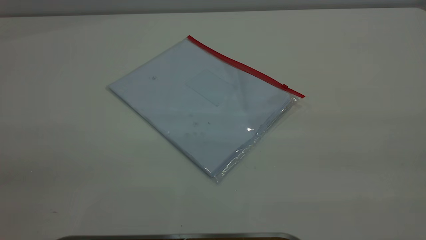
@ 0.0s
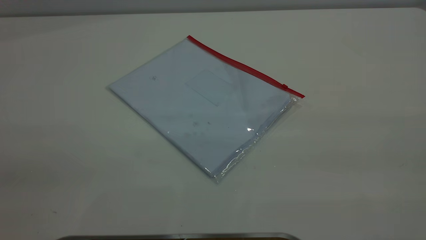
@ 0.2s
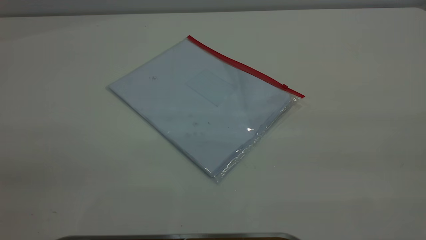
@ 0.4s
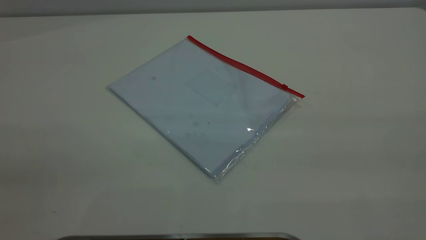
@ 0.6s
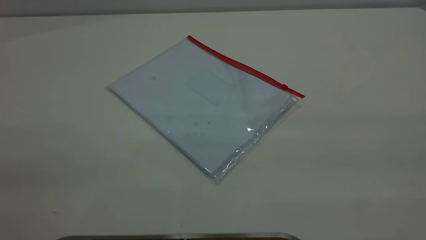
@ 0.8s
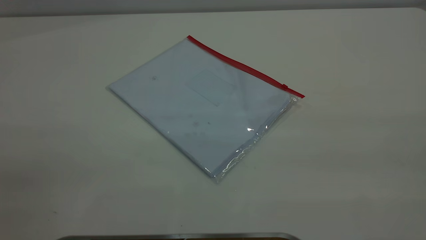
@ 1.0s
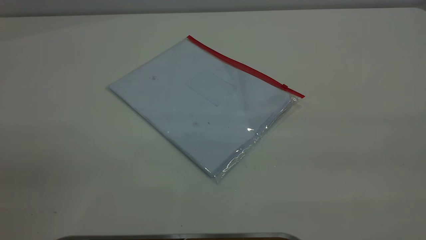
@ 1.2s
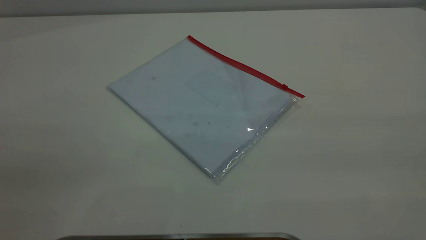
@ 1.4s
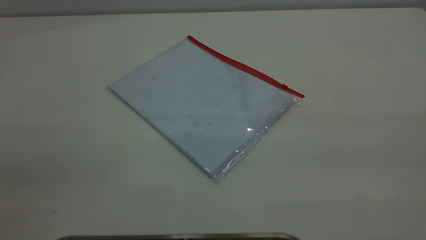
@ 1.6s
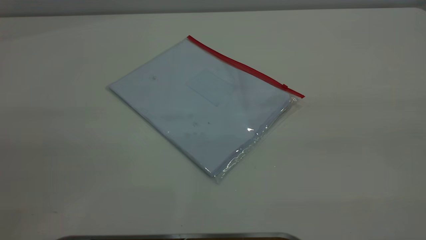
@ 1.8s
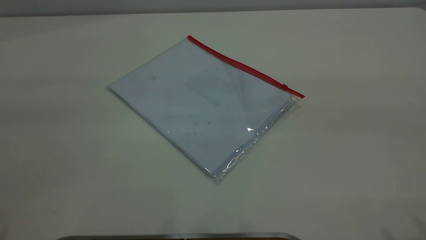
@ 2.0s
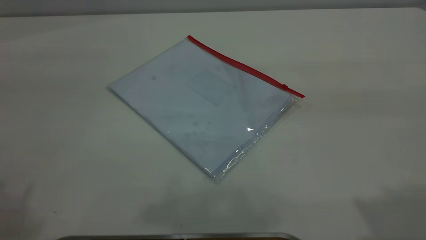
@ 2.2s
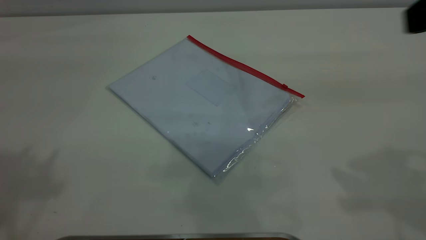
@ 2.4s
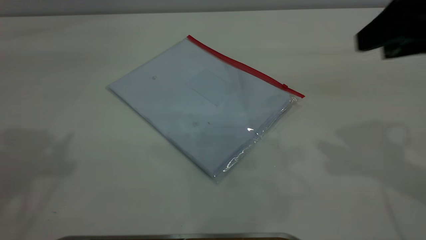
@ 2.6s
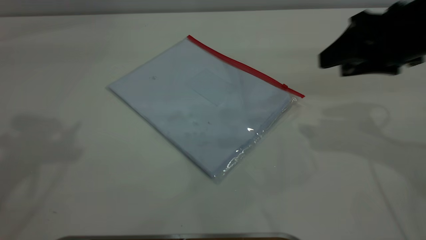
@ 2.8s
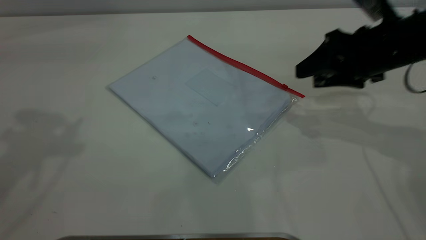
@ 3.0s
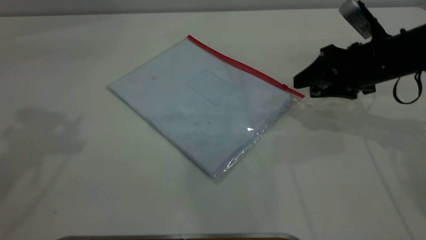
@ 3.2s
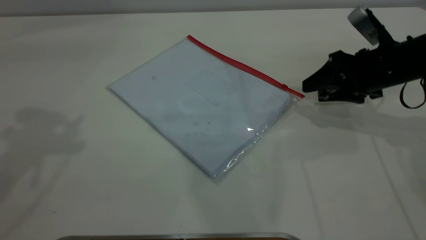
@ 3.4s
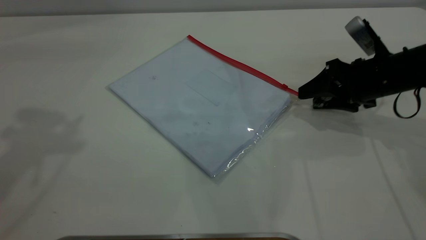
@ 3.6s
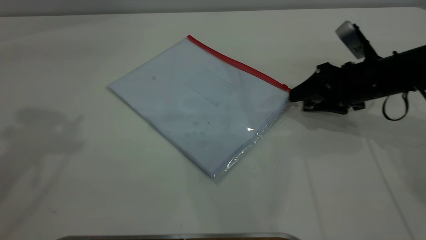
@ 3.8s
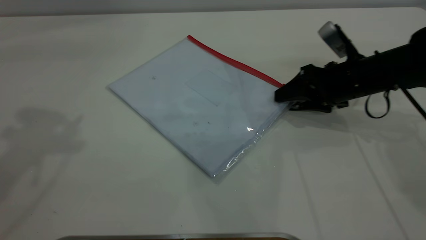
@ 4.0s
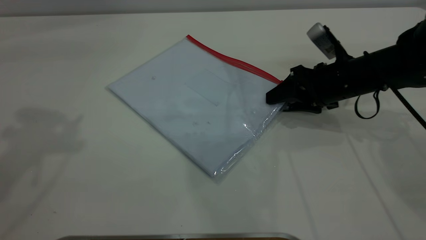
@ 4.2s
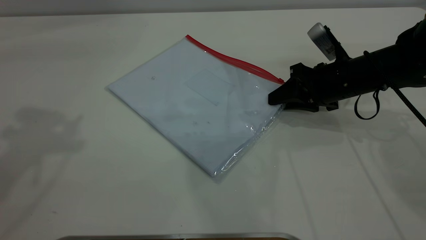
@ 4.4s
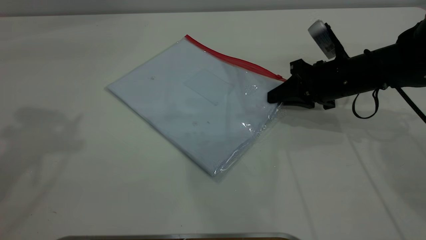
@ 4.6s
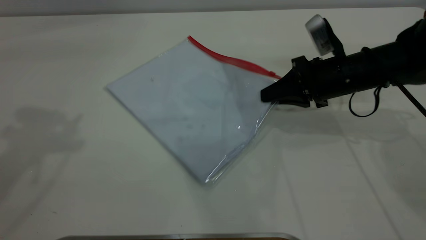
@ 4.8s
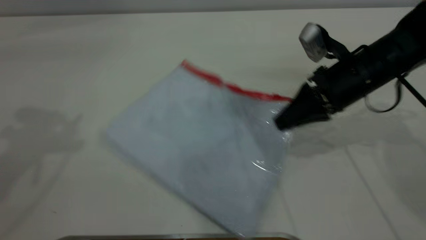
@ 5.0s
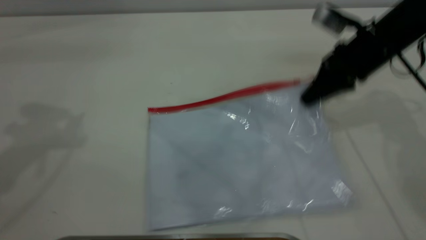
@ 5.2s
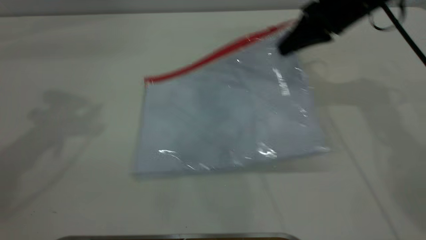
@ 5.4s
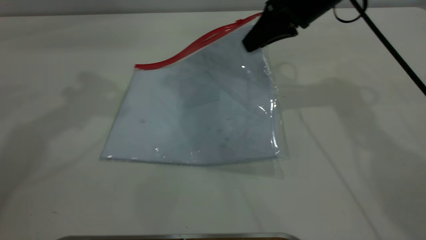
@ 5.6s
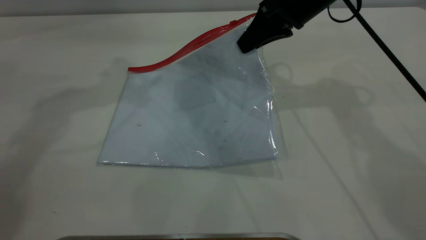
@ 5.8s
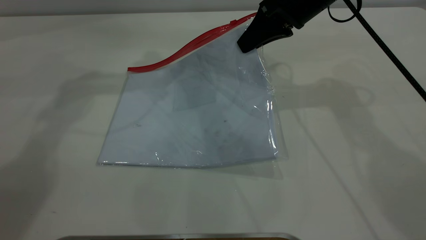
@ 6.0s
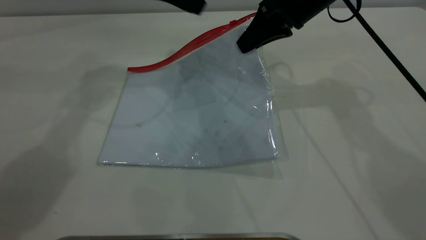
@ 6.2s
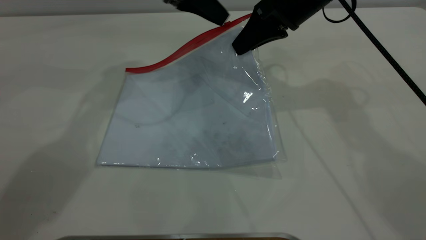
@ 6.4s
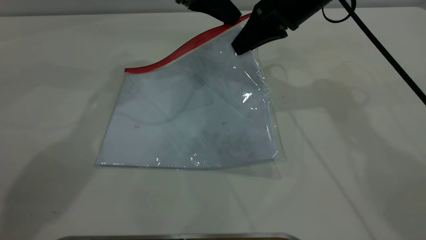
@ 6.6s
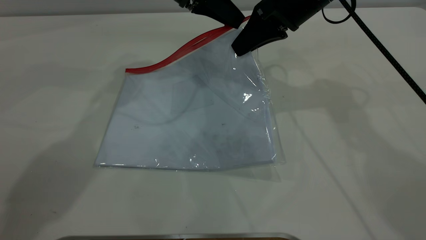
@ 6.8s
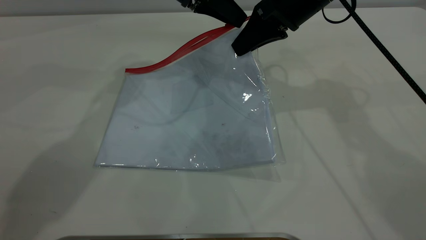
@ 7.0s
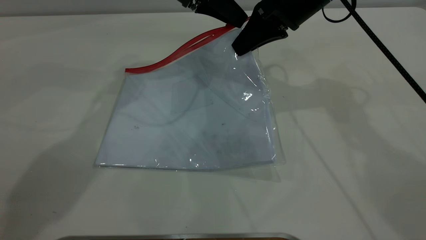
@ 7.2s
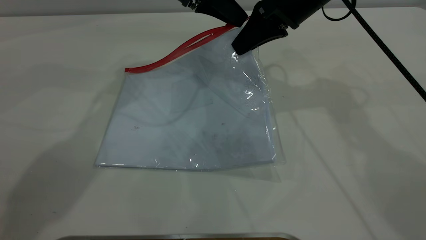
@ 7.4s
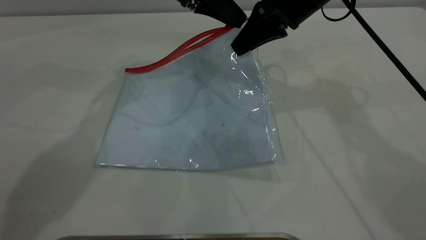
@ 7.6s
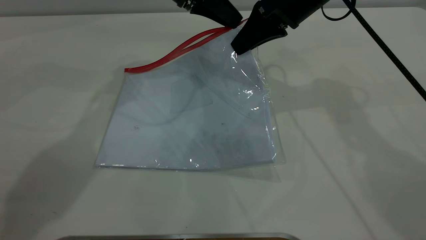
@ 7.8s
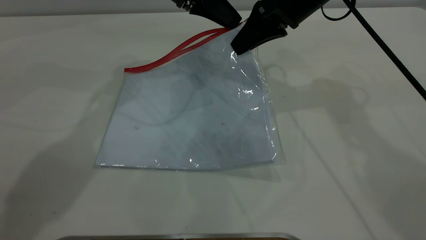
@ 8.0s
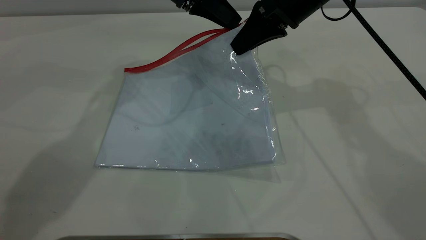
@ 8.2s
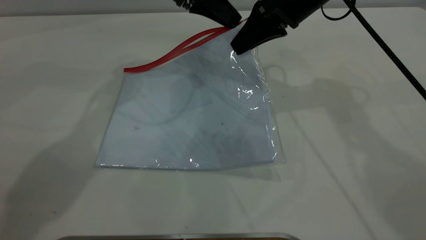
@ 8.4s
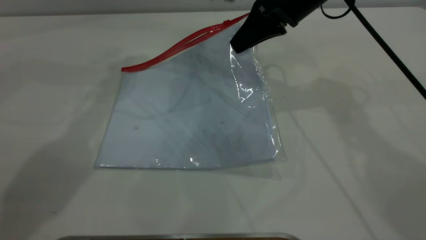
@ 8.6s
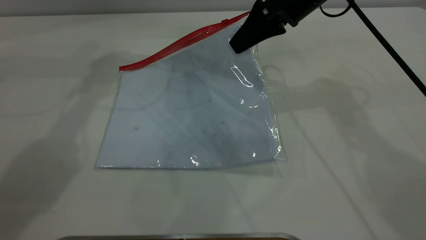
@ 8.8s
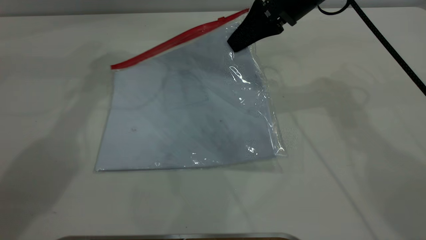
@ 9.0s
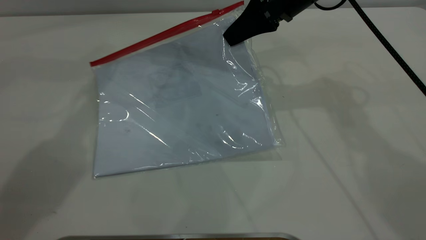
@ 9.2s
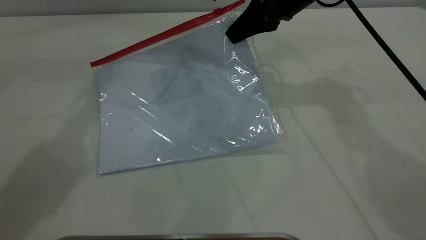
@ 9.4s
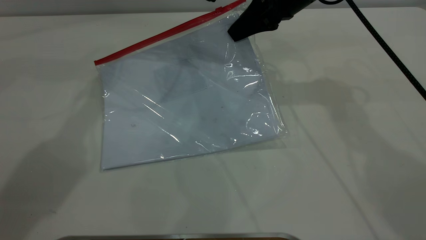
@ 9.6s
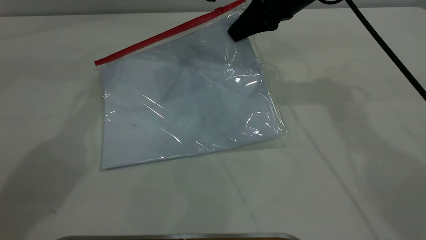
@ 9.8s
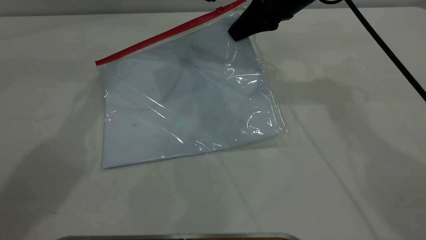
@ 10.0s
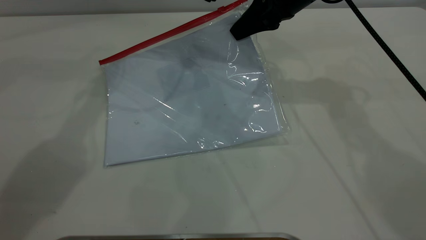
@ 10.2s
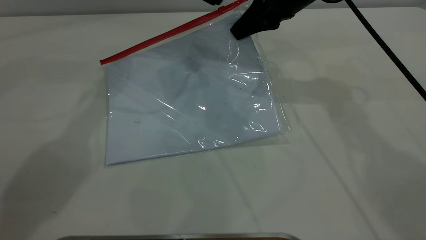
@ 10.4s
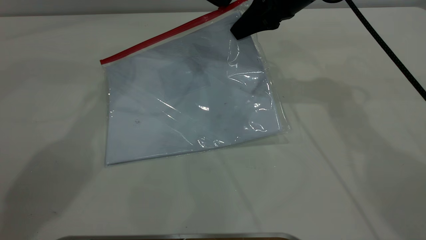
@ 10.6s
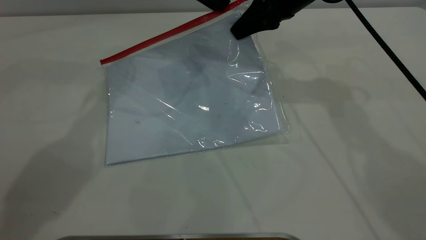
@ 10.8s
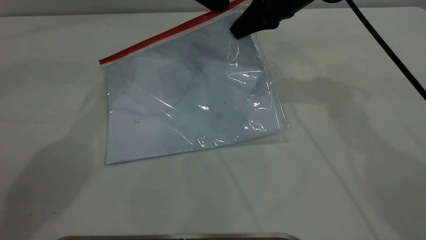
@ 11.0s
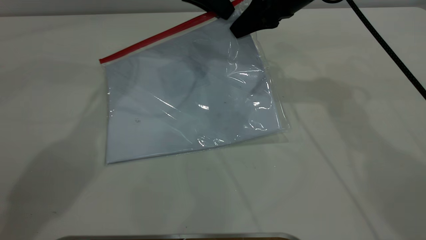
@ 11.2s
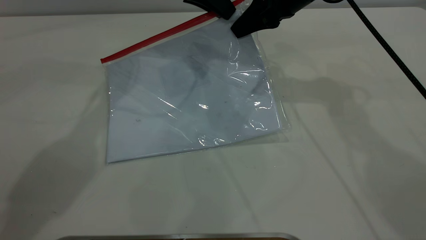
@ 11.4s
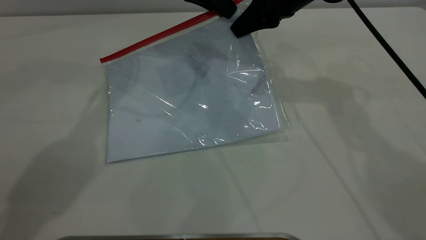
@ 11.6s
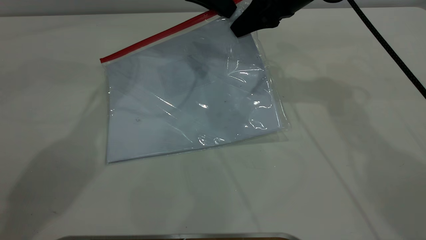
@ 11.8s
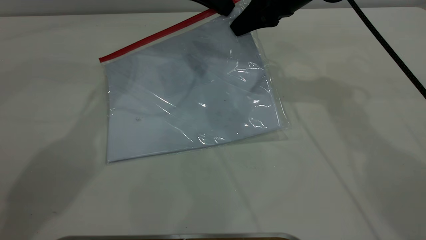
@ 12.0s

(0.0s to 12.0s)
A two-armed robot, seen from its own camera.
Step, 0.0s - 5.2s: Pick up the transparent plastic bag with the right gripper.
0.0s - 1.6s: The two grippers keep their place.
1.6s - 3.0s: The right gripper moves forward and downward, some 40 cm.
3.0s - 4.4s: The right gripper is displaced downward by roughly 10 cm, and closes.
4.4s - 6.0s: The left gripper is displaced forward, downward and to the right by approximately 25 cm, while the right gripper shifts about 15 cm upward and to the left.
6.0s - 7.6s: The left gripper is displaced to the right by roughly 10 cm.
7.6s - 9.0s: The left gripper shifts by approximately 5 cm.
9.0s - 10.4s: The grippers stay close to where they were, moving slightly.
10.4s - 12.0s: The left gripper closes up.

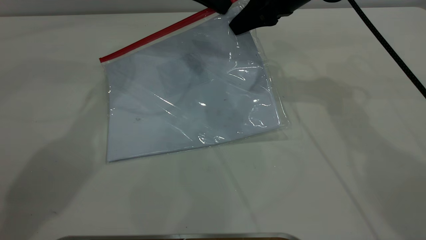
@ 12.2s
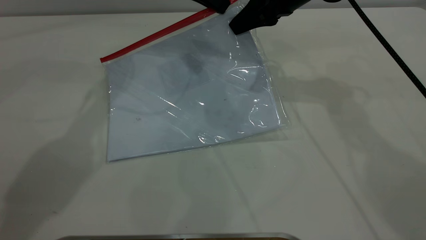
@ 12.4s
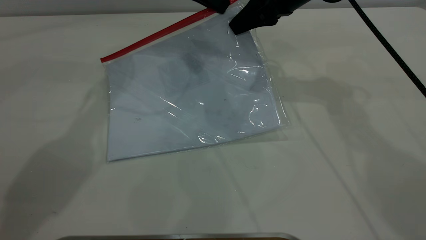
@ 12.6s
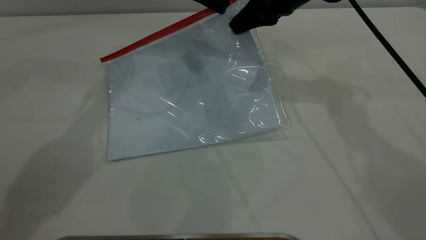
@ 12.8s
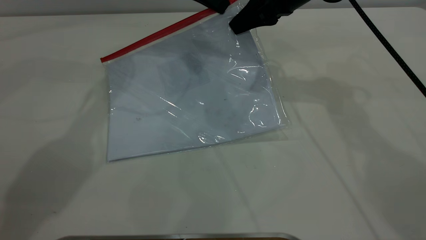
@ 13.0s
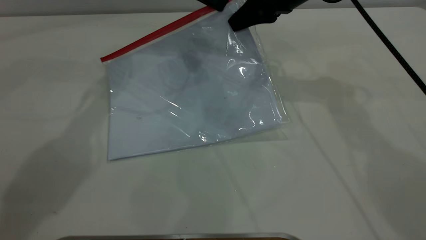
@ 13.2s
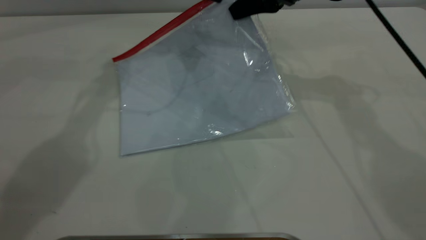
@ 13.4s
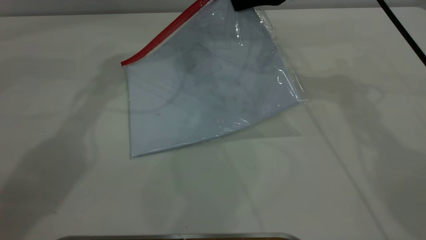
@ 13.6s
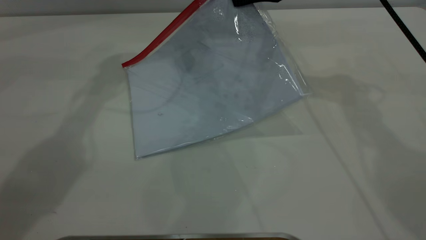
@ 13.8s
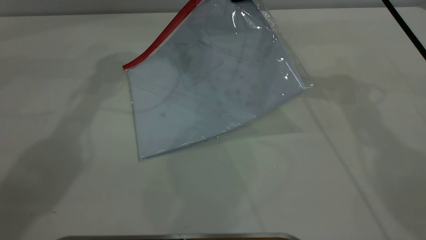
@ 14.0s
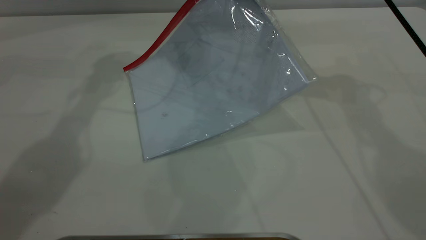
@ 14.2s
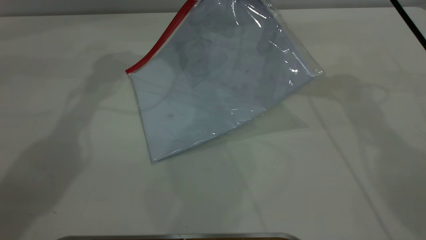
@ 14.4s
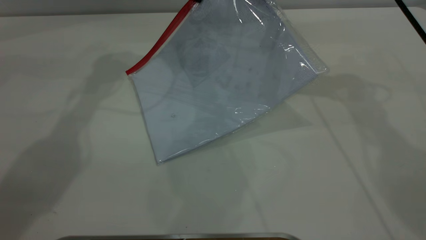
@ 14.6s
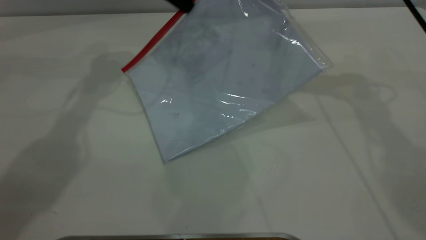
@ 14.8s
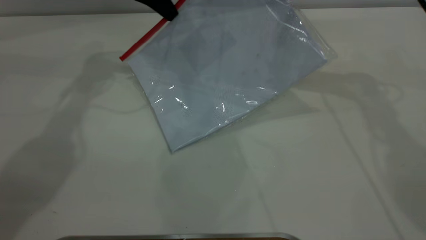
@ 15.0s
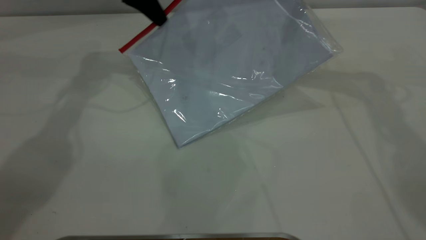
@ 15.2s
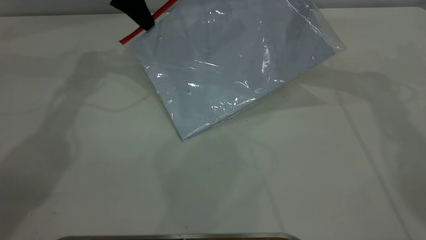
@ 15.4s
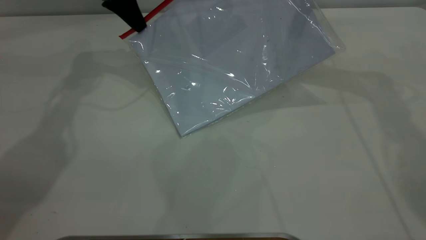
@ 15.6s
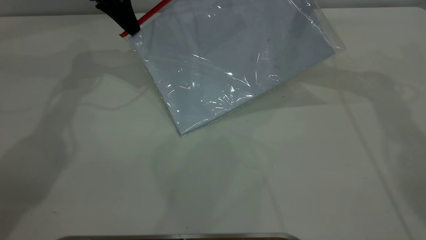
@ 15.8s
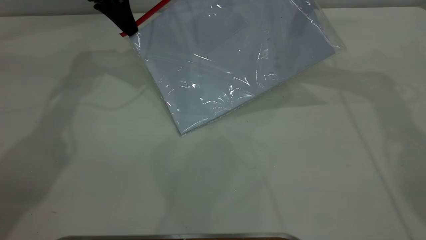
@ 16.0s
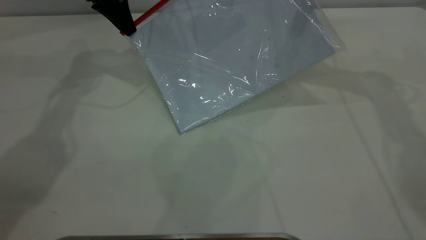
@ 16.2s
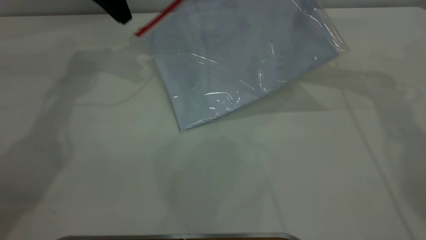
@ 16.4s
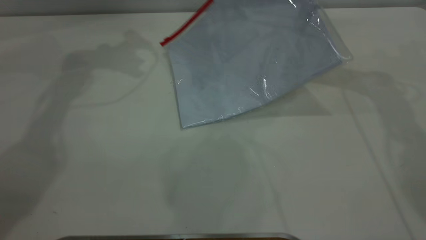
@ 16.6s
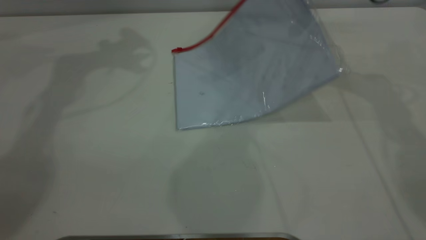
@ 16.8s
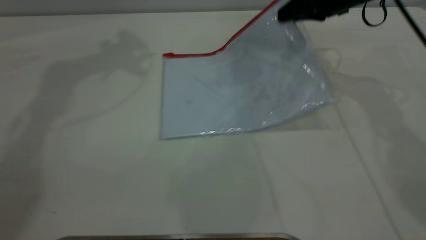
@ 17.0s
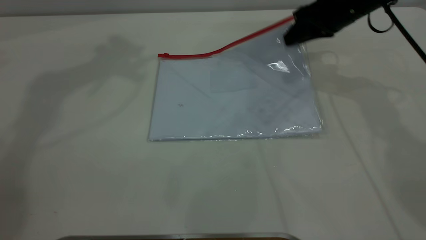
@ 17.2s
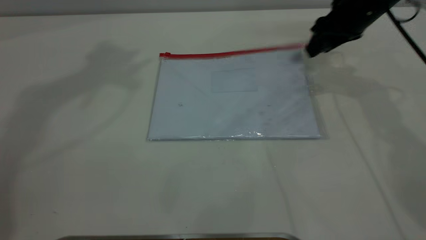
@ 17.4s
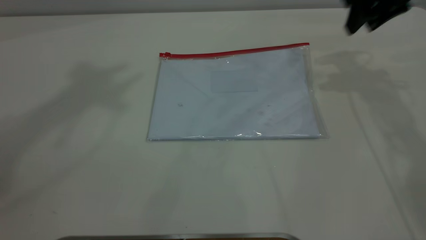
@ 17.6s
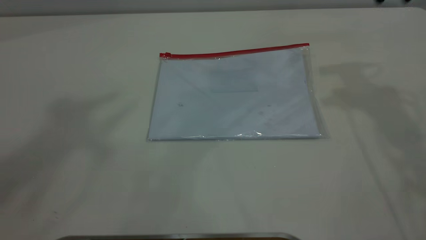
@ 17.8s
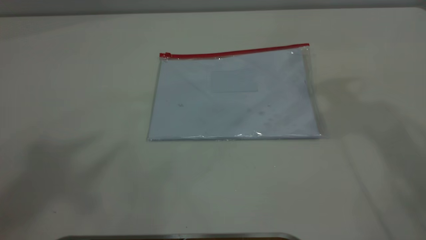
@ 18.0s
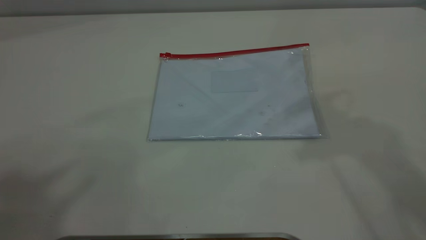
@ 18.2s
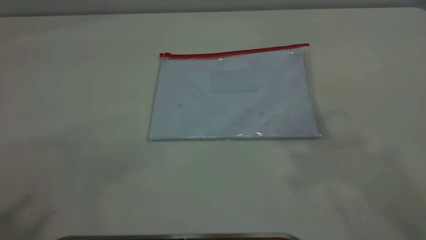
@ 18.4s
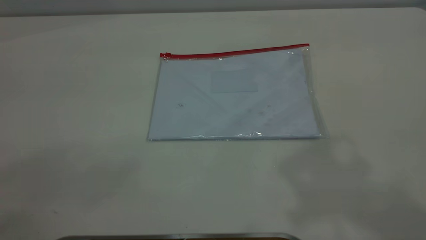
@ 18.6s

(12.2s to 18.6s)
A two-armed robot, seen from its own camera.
Step, 12.2s - 16.4s: Pulling up the zipper on the transparent plastic bag with the left gripper to close it.
Step, 16.6s - 17.6s: Place the transparent plastic bag.
12.2s - 13.8s: The grippers move only a little.
13.8s - 15.4s: The left gripper goes roughly 10 cm to the left. The right gripper is displaced to the right by some 5 cm.
15.4s - 17.0s: The right gripper shifts about 5 cm downward, while the left gripper goes some 25 cm upward, and opens its fingers.
17.0s - 18.6s: The right gripper goes about 40 cm upward and backward, and opens, while the left gripper shifts approximately 40 cm backward.
